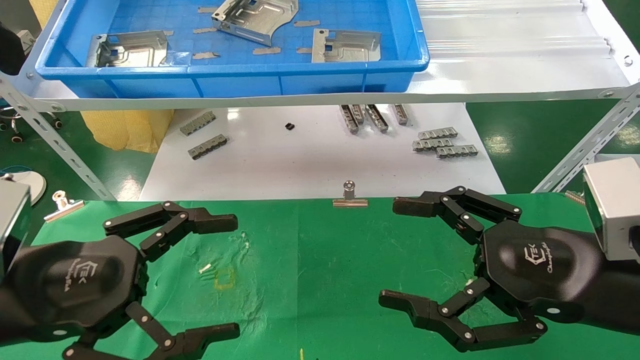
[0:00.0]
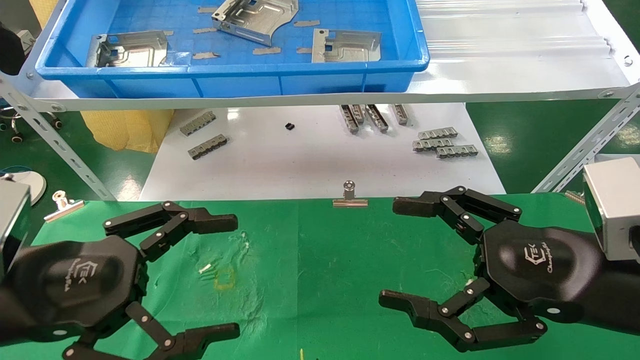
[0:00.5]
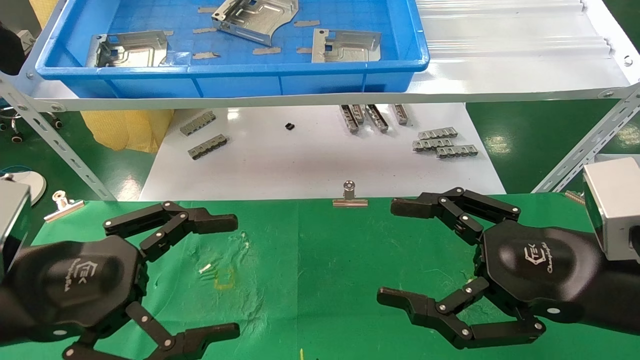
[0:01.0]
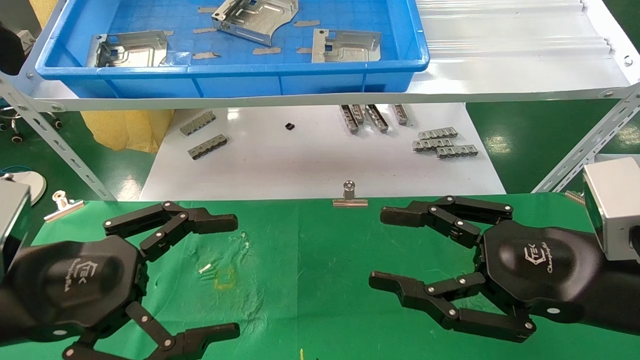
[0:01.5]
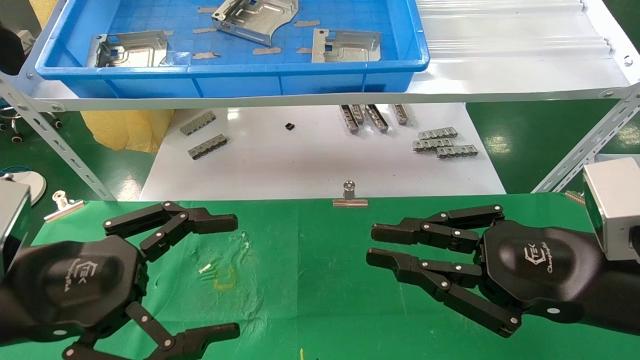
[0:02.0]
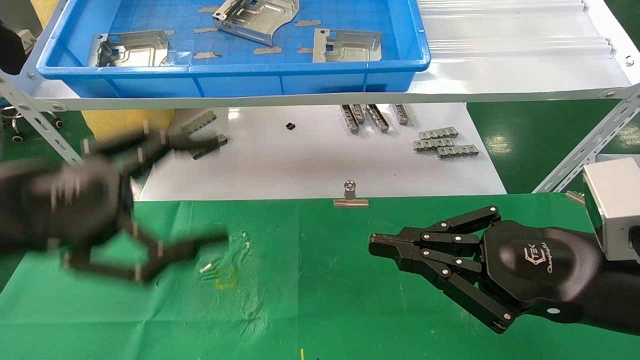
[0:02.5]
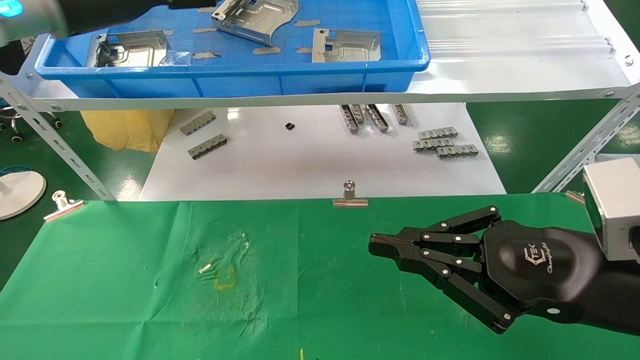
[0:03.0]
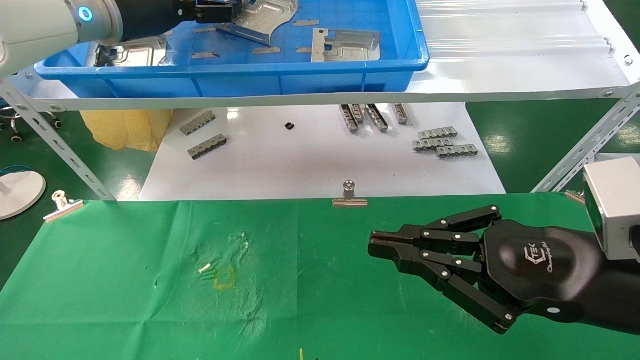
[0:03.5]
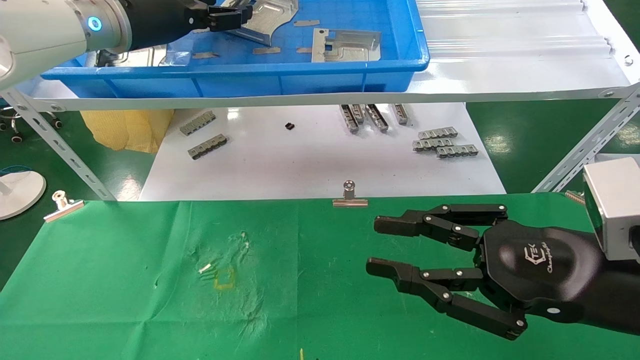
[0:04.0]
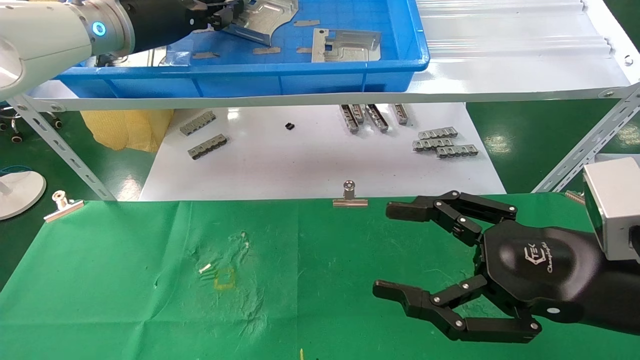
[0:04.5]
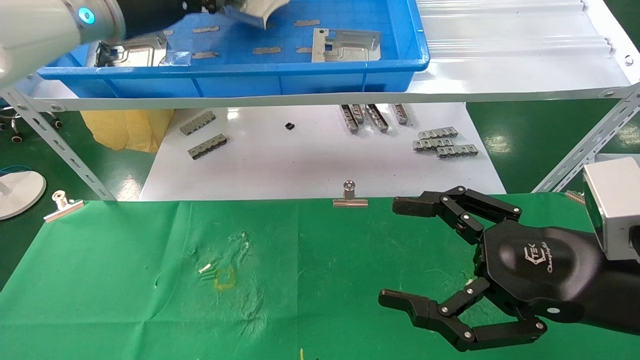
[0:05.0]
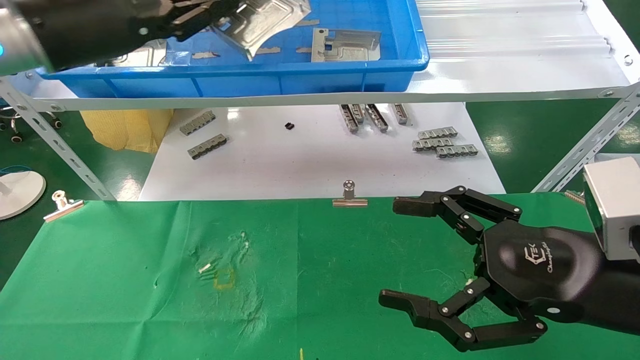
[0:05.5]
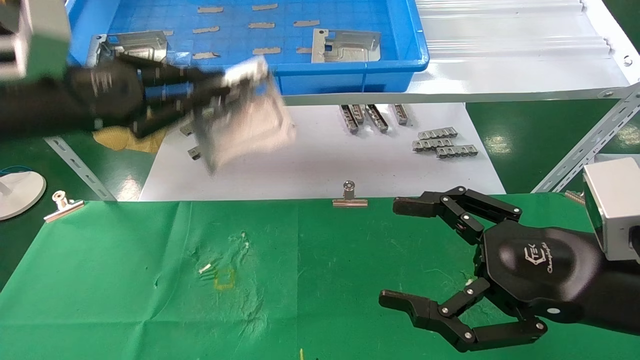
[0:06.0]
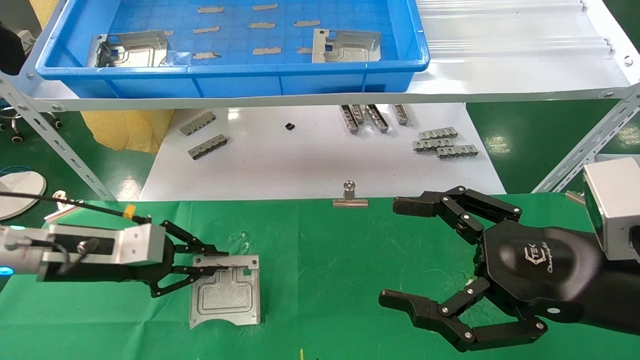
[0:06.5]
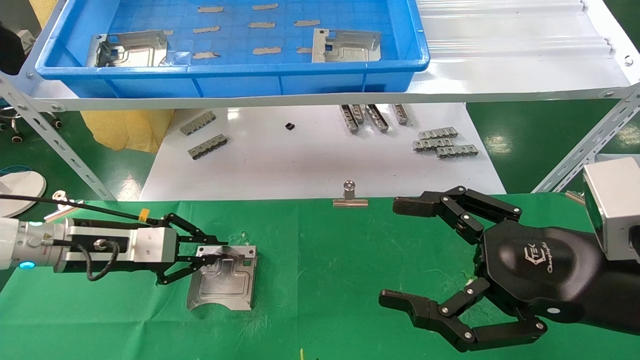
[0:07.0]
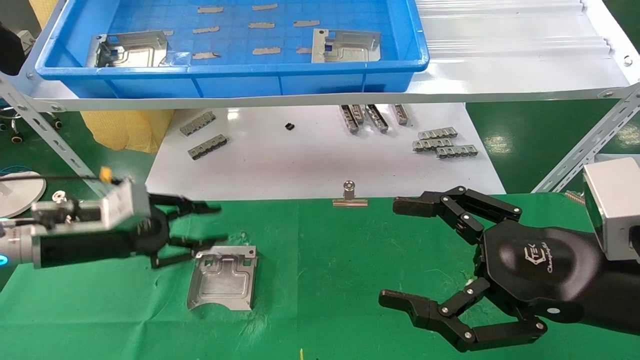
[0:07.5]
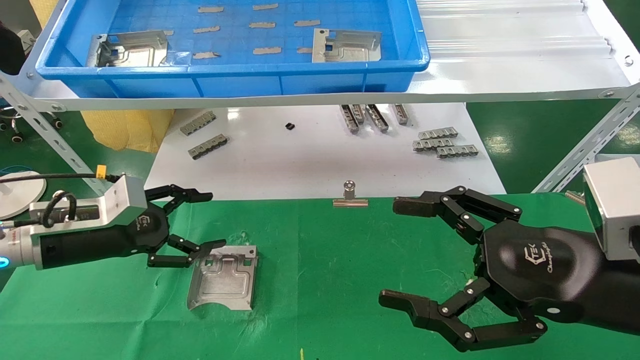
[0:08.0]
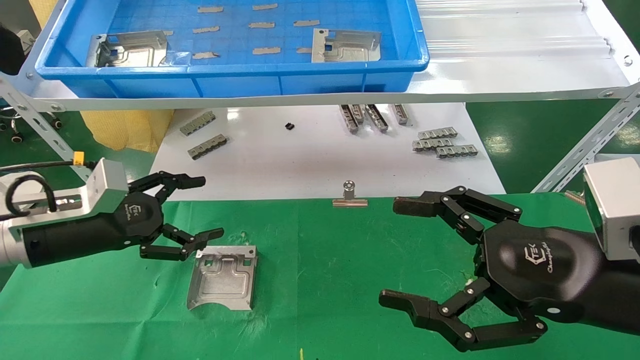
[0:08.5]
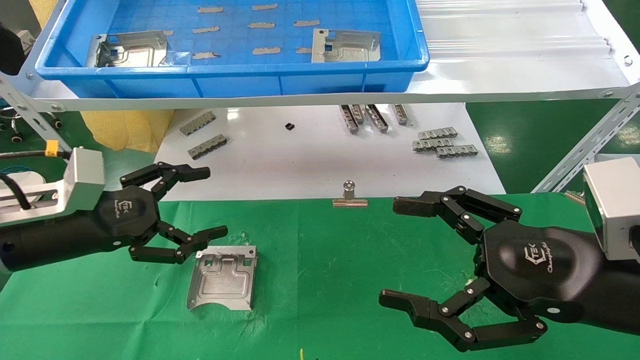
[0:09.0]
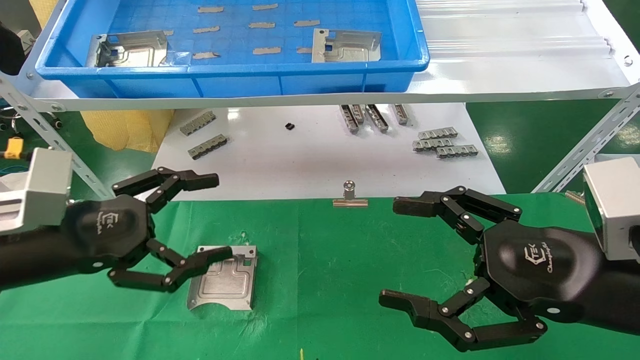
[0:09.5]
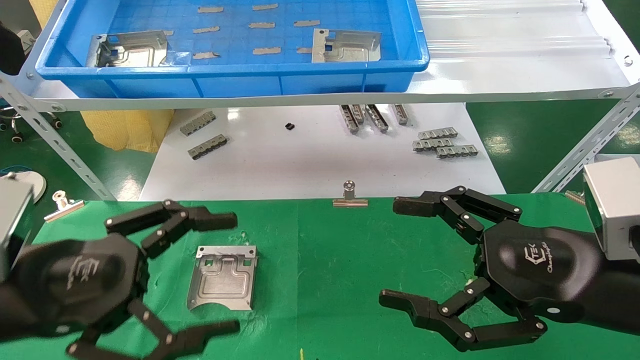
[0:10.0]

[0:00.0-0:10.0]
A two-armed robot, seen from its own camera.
Task of the whole recording: use the mechanical arm to pick up the parts and place them on the table.
Step, 0:02.5 to 0:04.5: Pick up the hard drive bracket from the feeding area.
Step, 0:05.0 to 0:07.5: Place the hard drive bracket into the box.
0:00.0 to 0:02.0: The right gripper closes up.
0:02.0 to 0:04.0: The left gripper moves forward and upward, about 35 cm.
0:04.0 to 0:06.0: The right gripper opens up. The left gripper travels backward, downward and to the left by about 20 cm, and closes.
0:06.0 to 0:08.0: The left gripper shifts approximately 15 cm downward, and opens its fingers.
0:08.0 to 0:10.0: The left gripper travels backward by roughly 15 cm.
